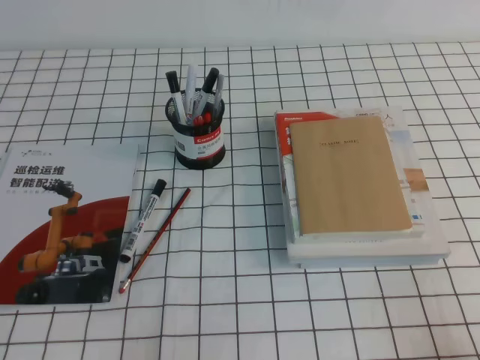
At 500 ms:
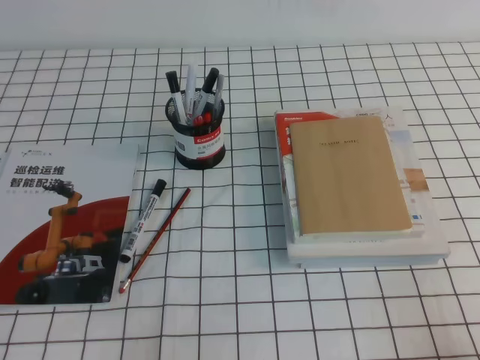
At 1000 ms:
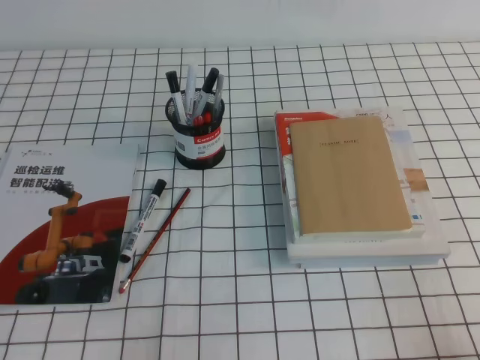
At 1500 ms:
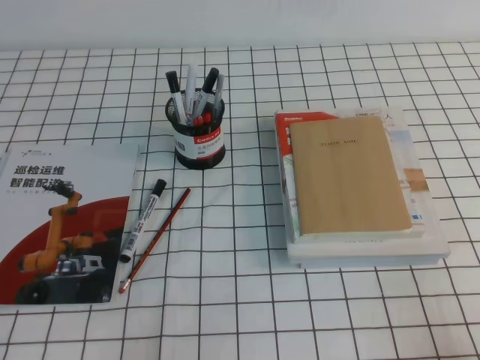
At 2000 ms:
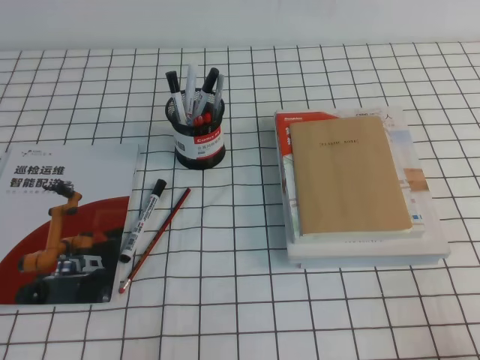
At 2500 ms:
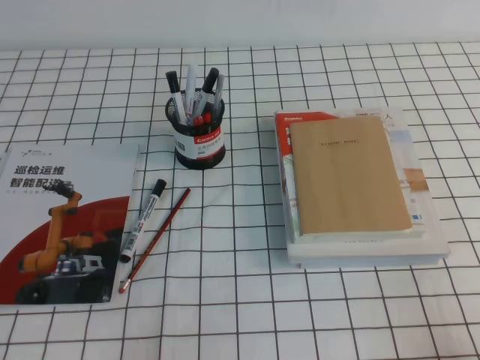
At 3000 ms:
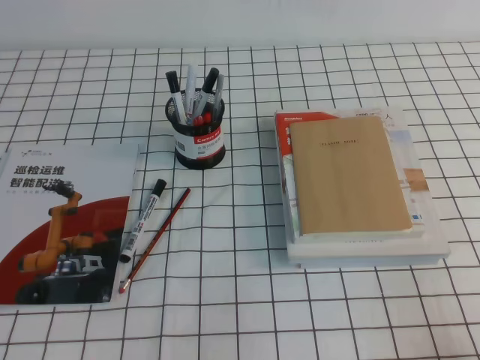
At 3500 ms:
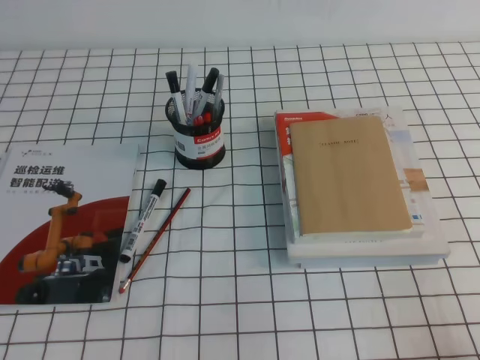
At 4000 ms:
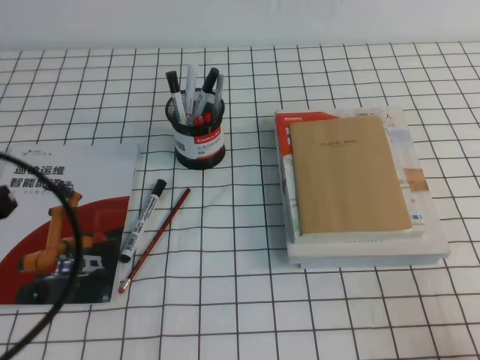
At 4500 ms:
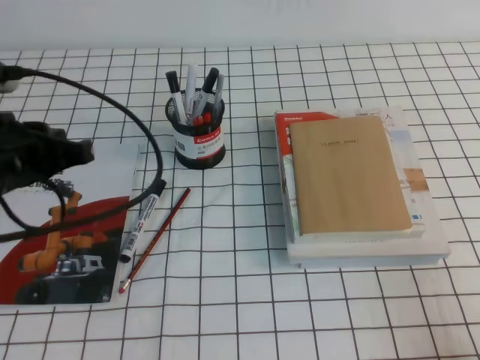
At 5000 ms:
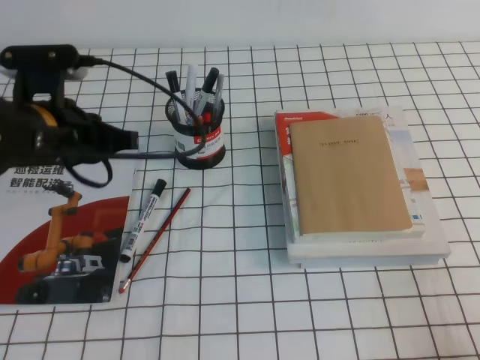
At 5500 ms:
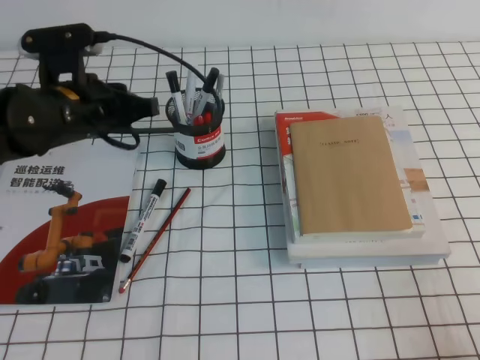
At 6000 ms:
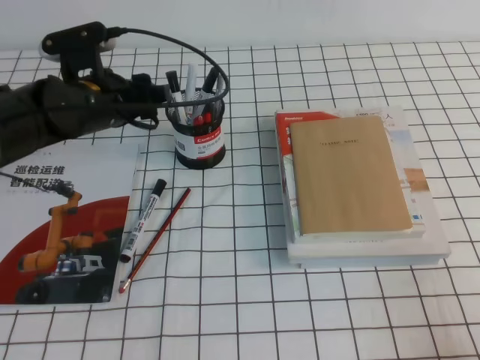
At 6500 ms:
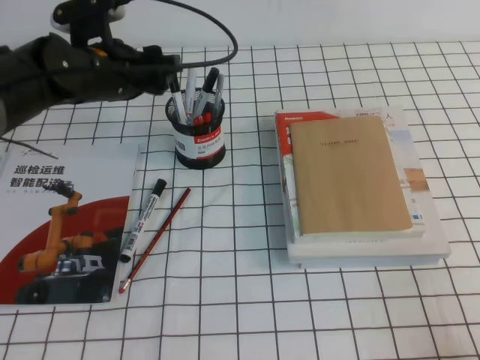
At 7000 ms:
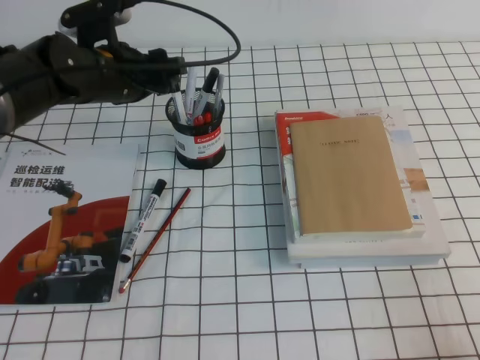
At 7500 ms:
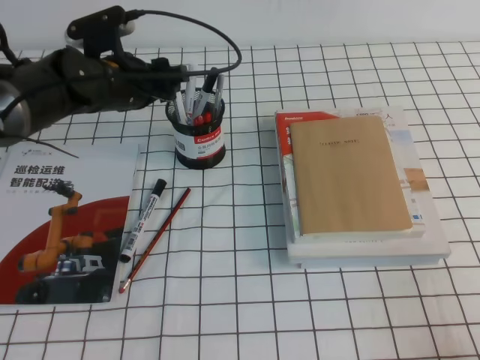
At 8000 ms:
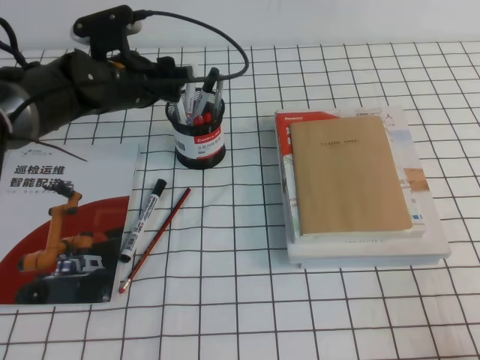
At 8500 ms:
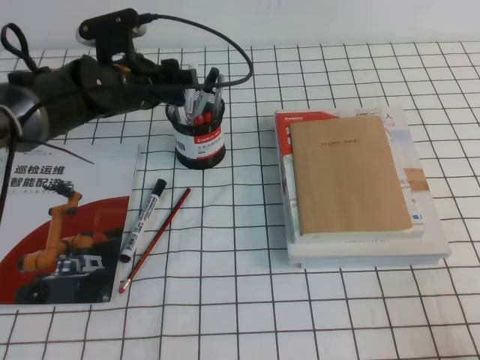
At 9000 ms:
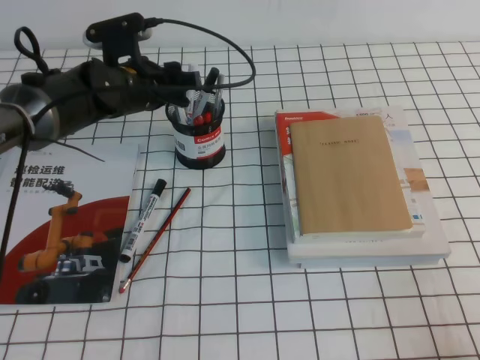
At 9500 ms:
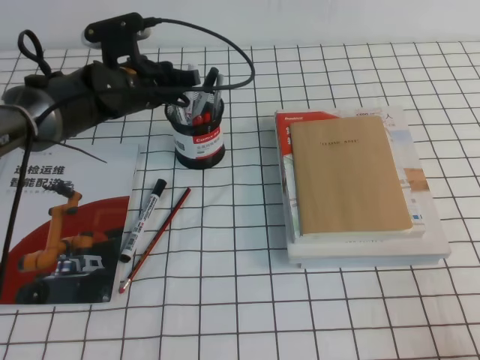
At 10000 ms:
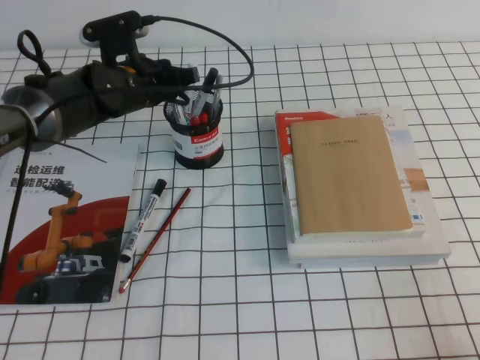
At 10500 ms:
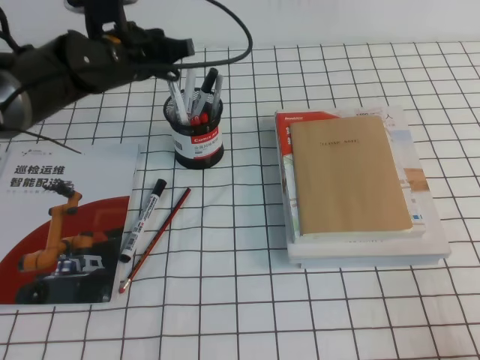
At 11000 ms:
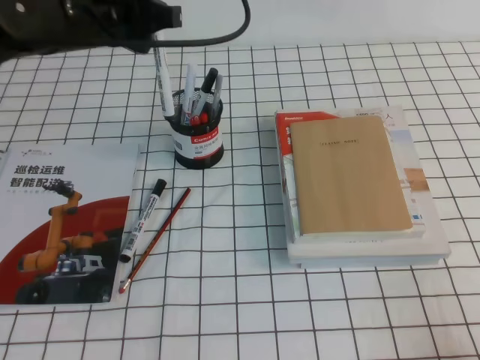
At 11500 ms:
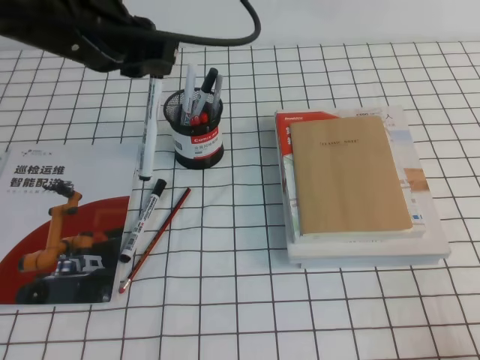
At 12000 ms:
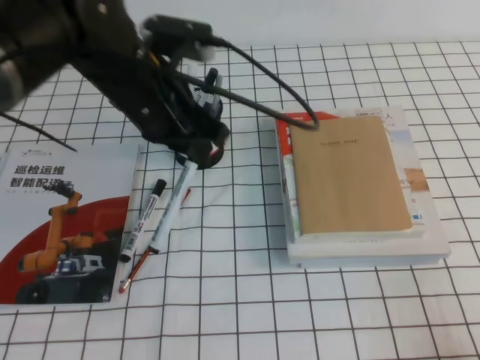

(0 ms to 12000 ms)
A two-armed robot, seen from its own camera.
0 ms - 2000 ms: Both grippers stay about where they are.
2000 ms - 4000 ms: The left gripper heads upward and forward, covering roughly 15 cm.
4000 ms - 6000 ms: The left gripper shifts approximately 25 cm forward and to the right, and opens up.
6000 ms - 8000 ms: The left gripper shifts by some 5 cm.
8000 ms - 10000 ms: The left gripper closes up.
10000 ms - 12000 ms: The left gripper moves backward and upward, approximately 15 cm.

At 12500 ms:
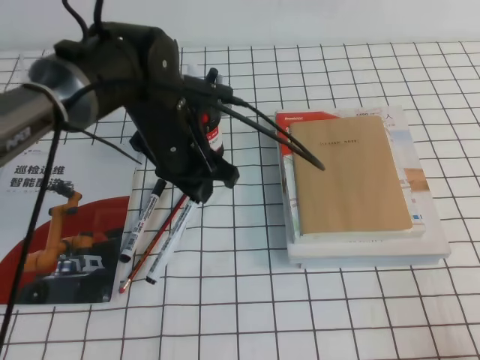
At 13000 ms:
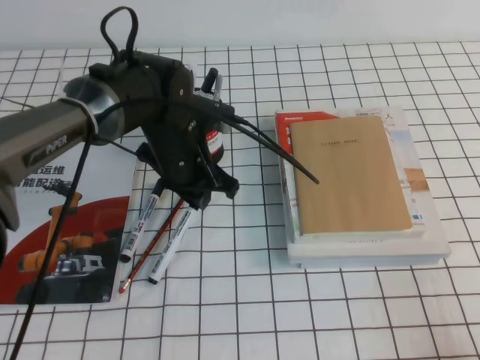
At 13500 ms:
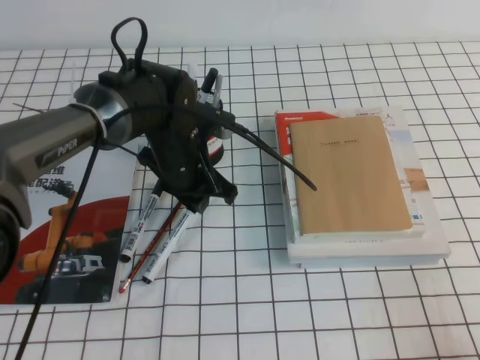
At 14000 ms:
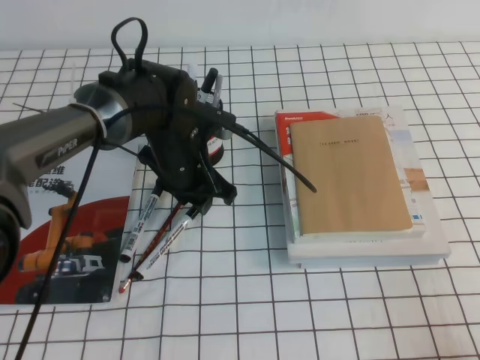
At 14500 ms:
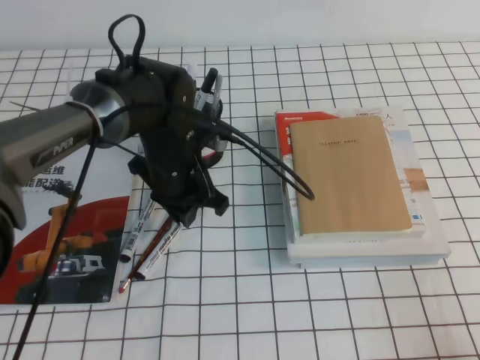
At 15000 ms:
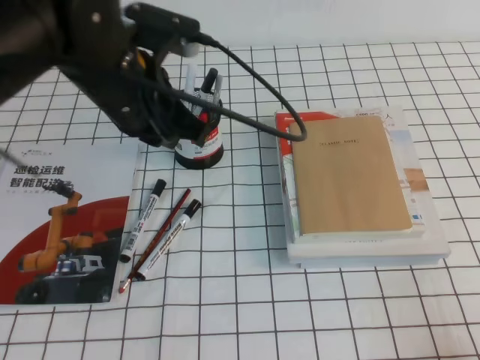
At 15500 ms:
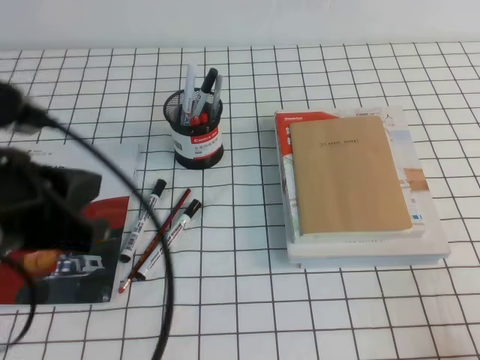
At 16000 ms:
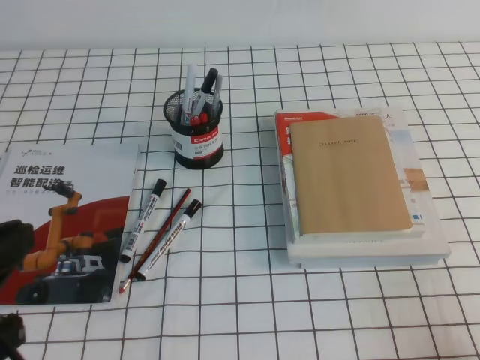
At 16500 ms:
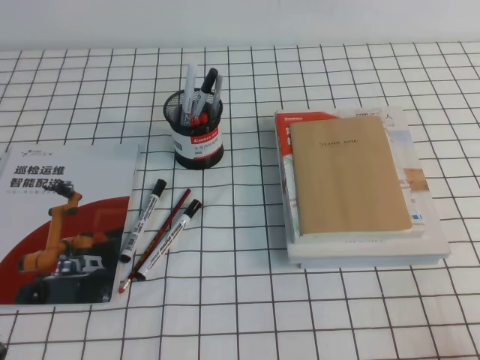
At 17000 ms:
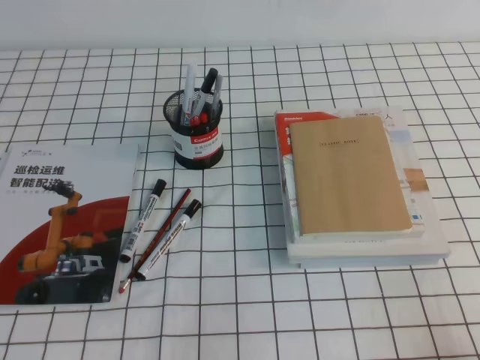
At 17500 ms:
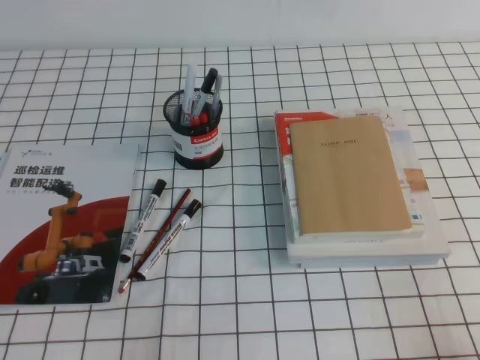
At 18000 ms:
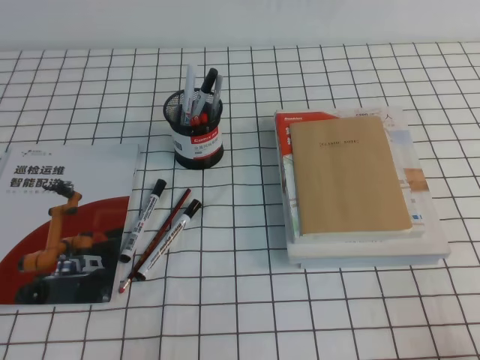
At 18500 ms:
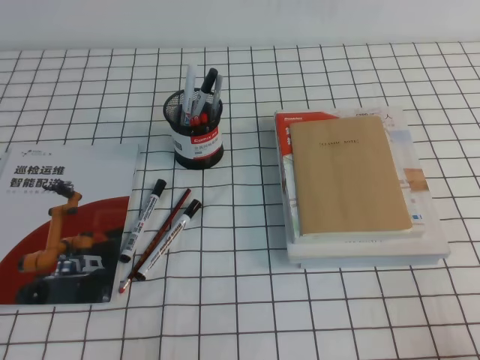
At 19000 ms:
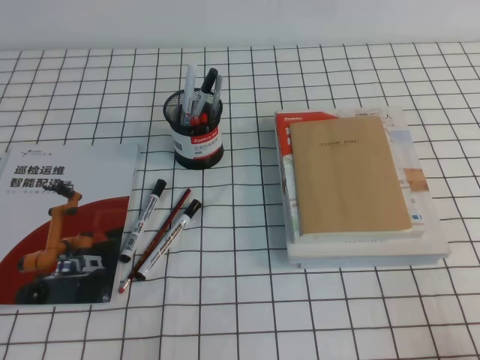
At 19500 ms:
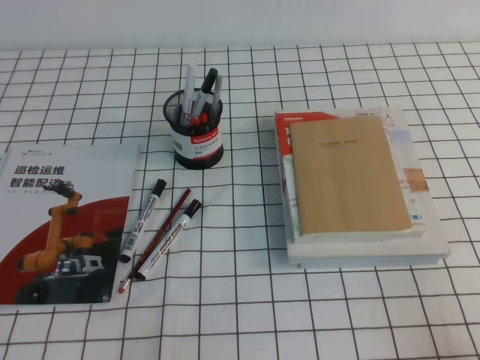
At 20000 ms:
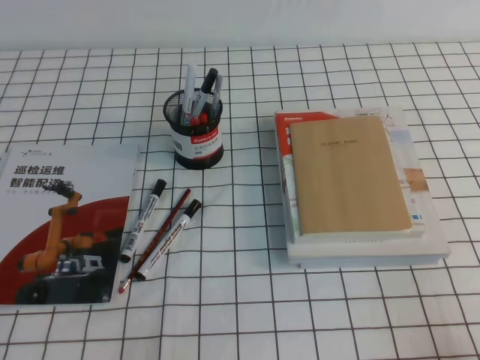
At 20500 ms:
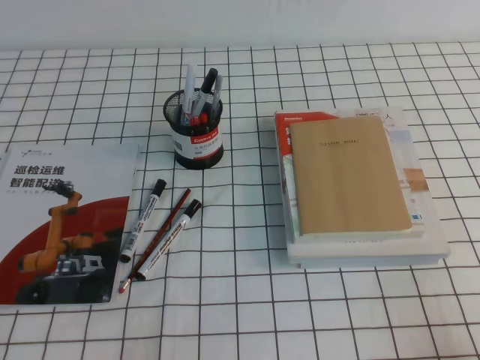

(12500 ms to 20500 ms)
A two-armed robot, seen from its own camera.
Step, 12500 ms - 20500 ms: Pick up the pen from the pen holder.
12500 ms - 14500 ms: The left gripper changes place by roughly 5 cm.
14500 ms - 16500 ms: The left gripper travels backward and to the left by approximately 35 cm, and closes.
18500 ms - 20500 ms: Both grippers stay put.
